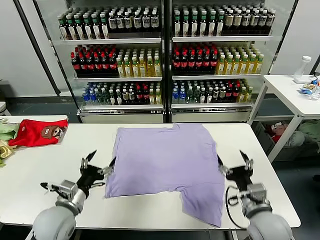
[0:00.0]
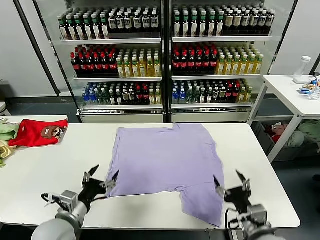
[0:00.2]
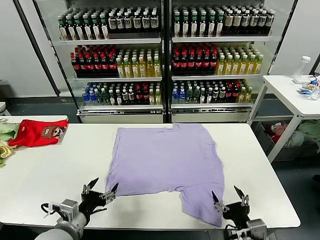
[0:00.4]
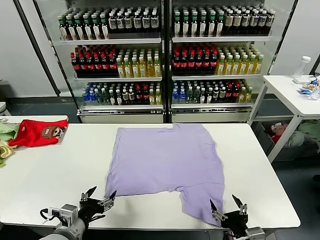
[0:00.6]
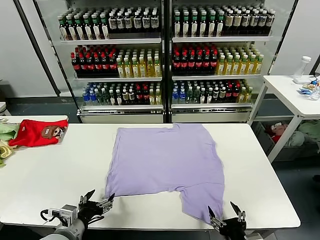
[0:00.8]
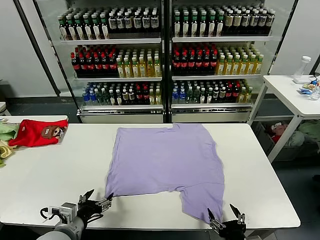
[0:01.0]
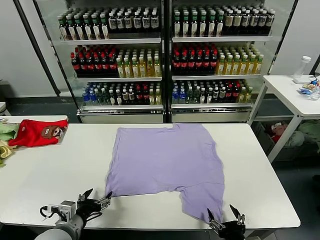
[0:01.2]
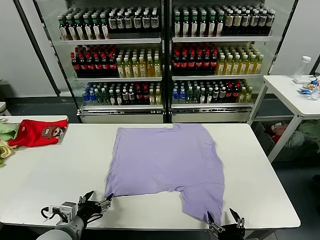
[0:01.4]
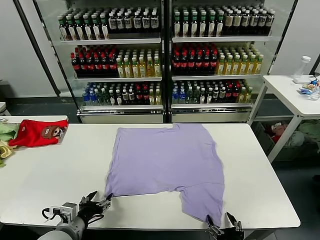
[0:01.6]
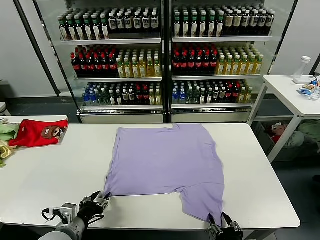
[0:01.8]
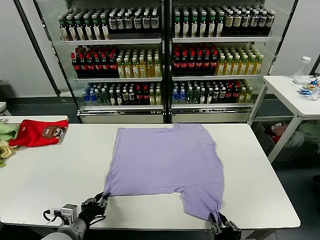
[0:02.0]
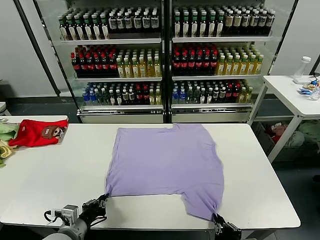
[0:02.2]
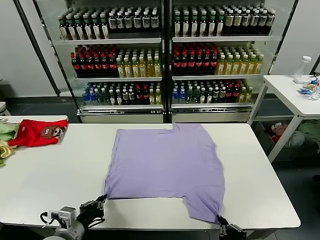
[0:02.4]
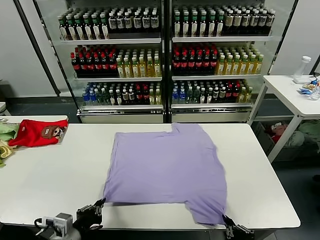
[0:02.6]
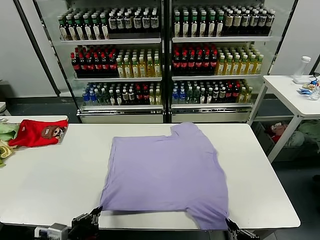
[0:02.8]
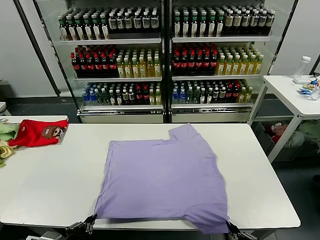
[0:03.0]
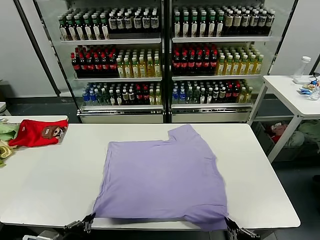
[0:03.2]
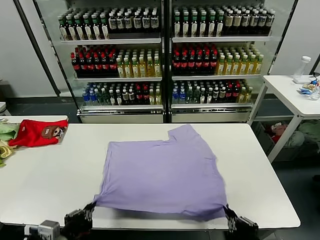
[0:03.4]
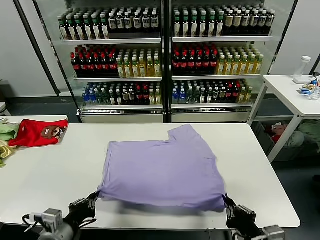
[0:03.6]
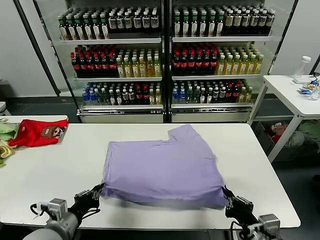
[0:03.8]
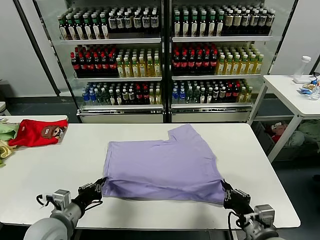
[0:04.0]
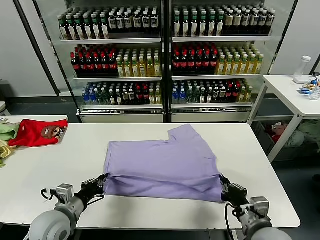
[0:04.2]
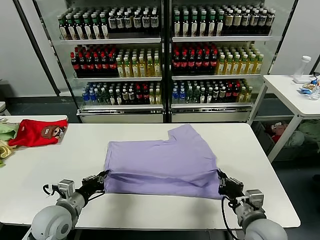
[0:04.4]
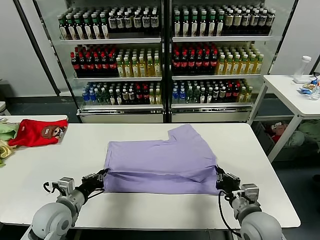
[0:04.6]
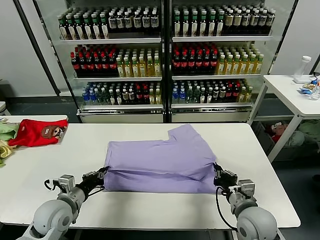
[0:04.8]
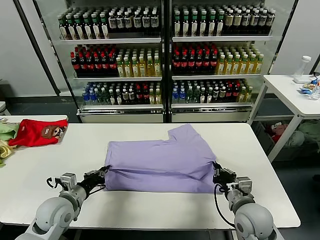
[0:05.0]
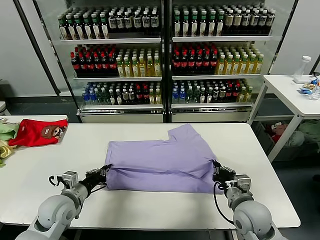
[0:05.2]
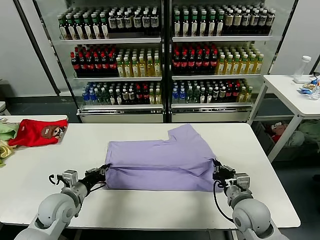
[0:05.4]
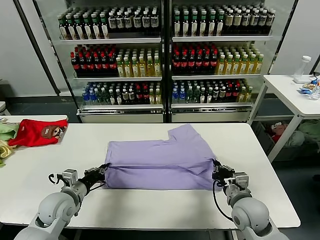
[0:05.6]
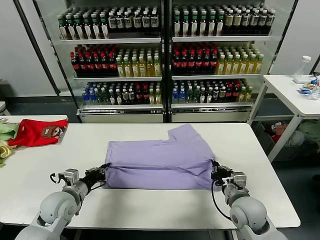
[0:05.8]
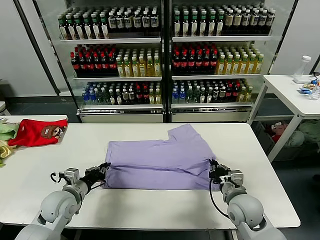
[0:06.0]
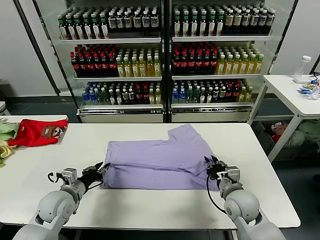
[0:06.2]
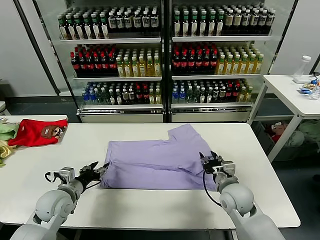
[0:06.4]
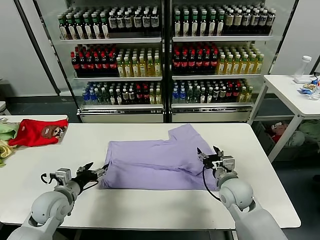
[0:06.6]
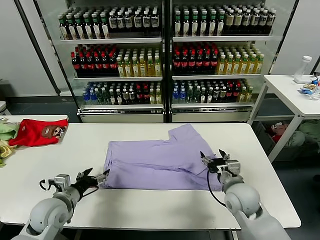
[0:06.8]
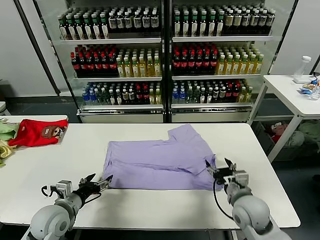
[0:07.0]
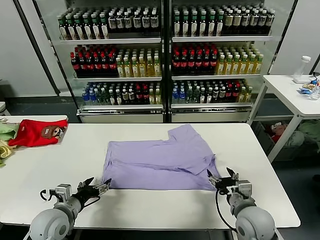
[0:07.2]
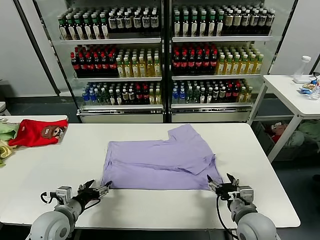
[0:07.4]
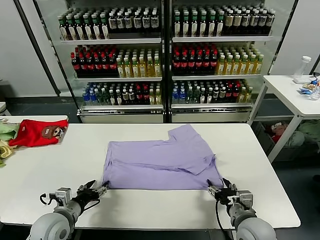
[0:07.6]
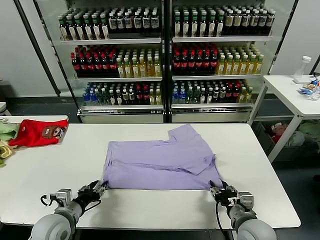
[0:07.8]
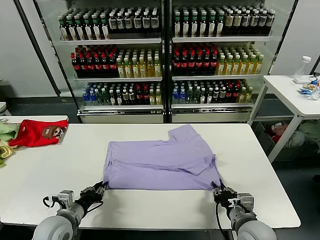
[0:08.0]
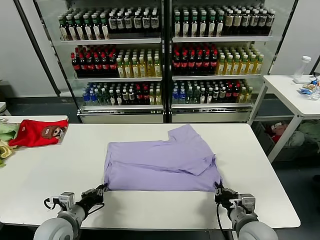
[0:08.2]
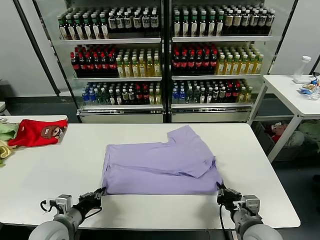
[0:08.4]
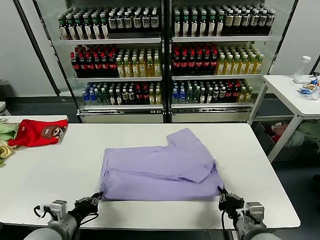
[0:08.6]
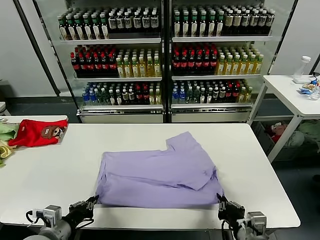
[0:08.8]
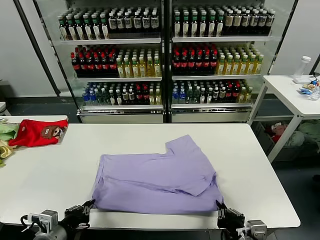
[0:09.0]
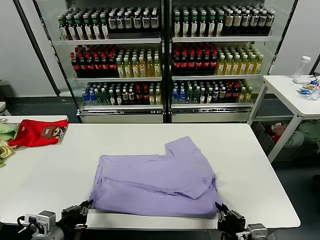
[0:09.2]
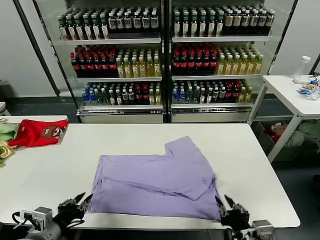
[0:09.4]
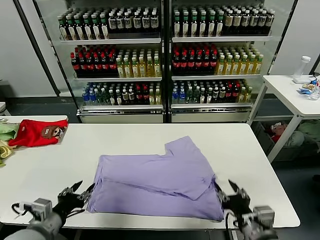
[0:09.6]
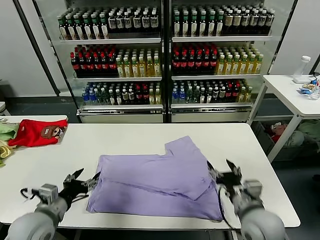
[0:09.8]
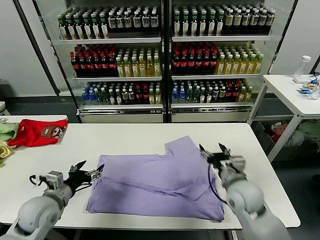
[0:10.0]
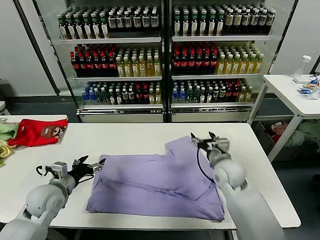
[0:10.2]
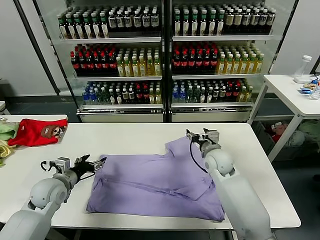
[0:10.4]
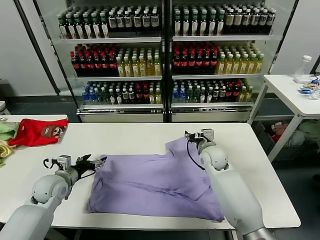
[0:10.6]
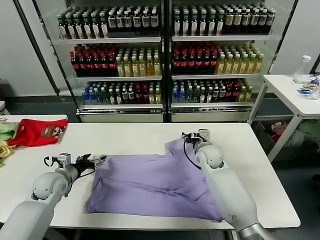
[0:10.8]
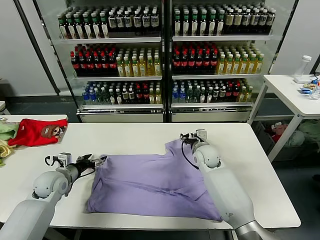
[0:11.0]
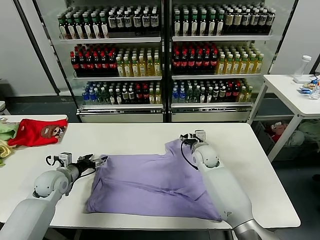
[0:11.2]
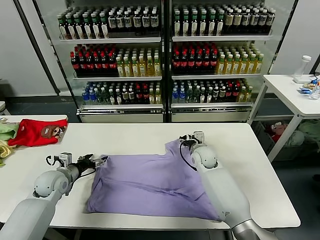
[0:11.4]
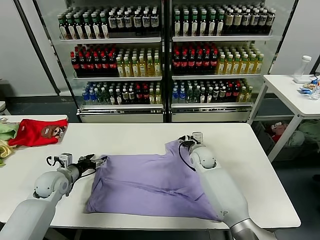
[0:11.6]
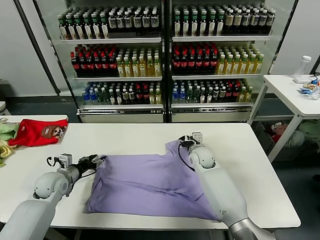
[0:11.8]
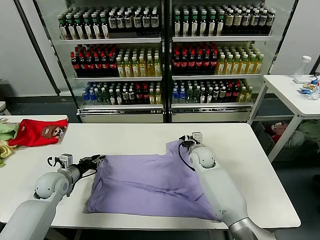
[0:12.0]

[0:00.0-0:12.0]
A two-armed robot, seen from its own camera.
Task of the whole recording: fold and organize the clothes.
Step, 0.0 to 2.0 s: use both grippers simultaneously to clamp the lower edge of the clothing fabric.
Step, 2.2 to 6.2 s: use both grippers to drag the lower edge of the fabric forward and fold it over the upper edge.
Step, 6.4 to 9.2 s: Drag the clothes downward with both gripper.
1.6 to 3.0 s: The left gripper is displaced backward and upward by roughly 10 cm, and closes up; the right gripper travels upward by about 10 cm, and closes up.
3.0 to 4.4 s: The grippers both shift forward by about 15 cm.
4.4 to 6.0 s: Both grippers travel together forward, about 5 cm.
6.0 to 7.6 s: The grippers both shift backward by roughly 10 cm. The left gripper opens up; the right gripper opens, then closes once more.
7.6 to 9.0 s: Both grippers travel together backward, about 10 cm. The left gripper closes up; the right gripper closes.
9.0 to 10.4 s: The right gripper goes some 35 cm forward, and opens up. The left gripper is displaced forward by roughly 20 cm, and opens its fingers.
10.4 to 12.0 s: The left gripper moves approximately 5 cm, and closes. Meanwhile the right gripper ends up about 5 cm from where it was, and closes up.

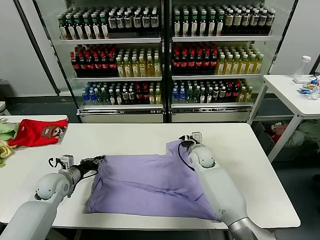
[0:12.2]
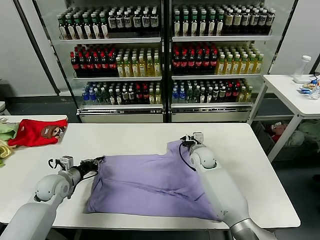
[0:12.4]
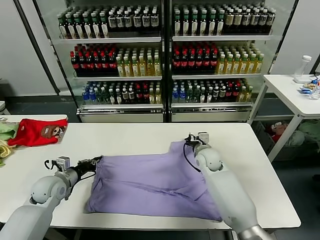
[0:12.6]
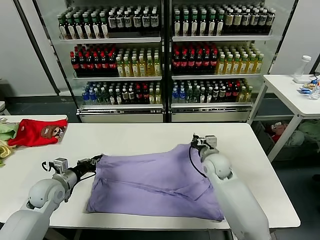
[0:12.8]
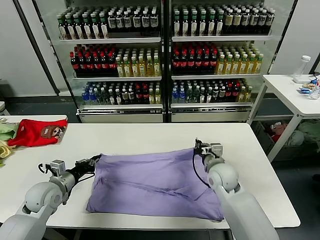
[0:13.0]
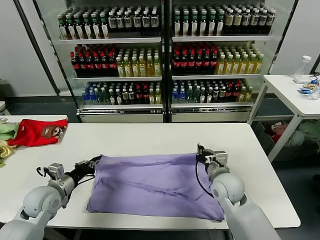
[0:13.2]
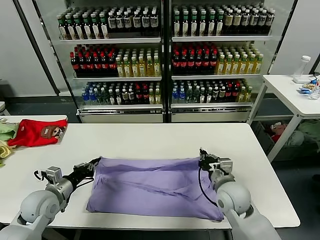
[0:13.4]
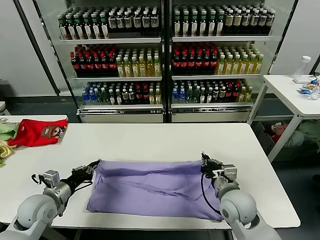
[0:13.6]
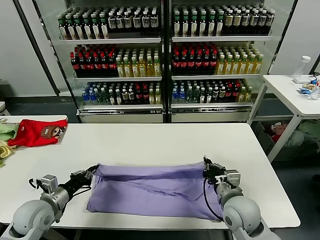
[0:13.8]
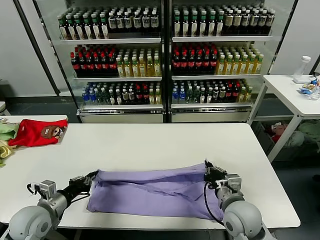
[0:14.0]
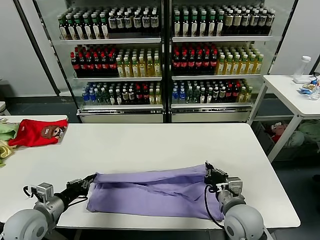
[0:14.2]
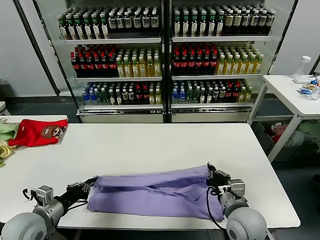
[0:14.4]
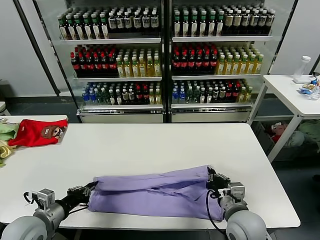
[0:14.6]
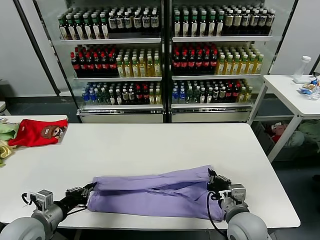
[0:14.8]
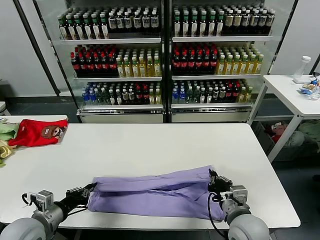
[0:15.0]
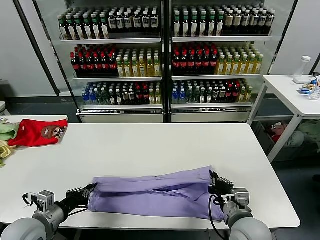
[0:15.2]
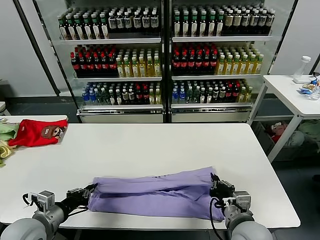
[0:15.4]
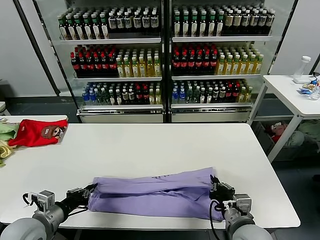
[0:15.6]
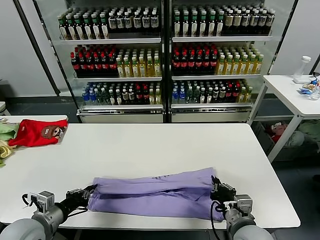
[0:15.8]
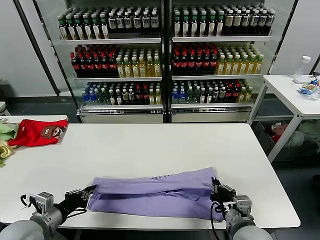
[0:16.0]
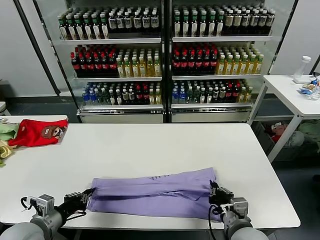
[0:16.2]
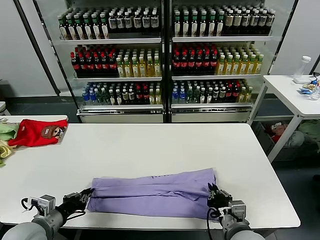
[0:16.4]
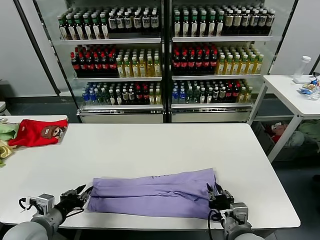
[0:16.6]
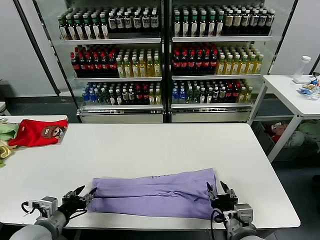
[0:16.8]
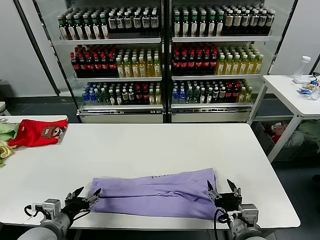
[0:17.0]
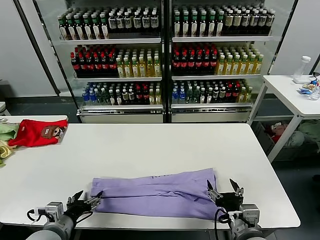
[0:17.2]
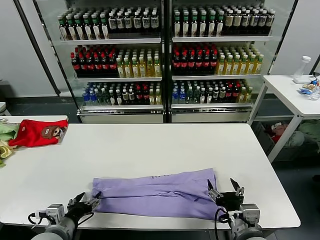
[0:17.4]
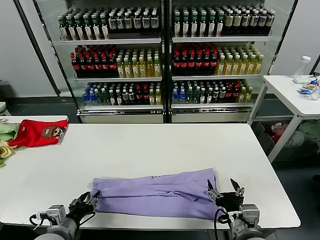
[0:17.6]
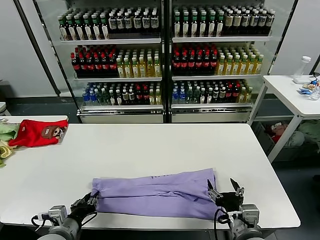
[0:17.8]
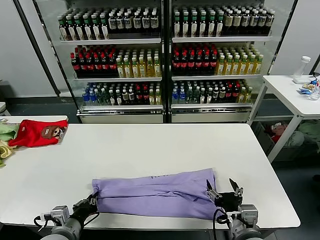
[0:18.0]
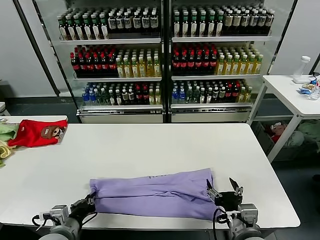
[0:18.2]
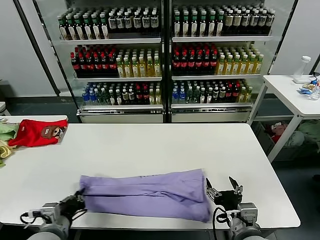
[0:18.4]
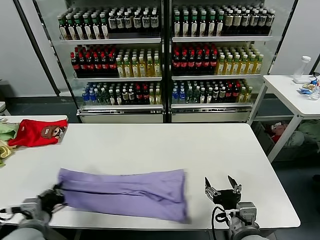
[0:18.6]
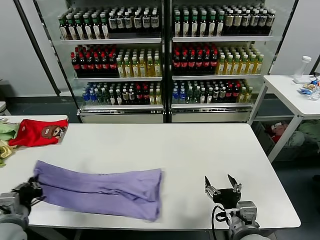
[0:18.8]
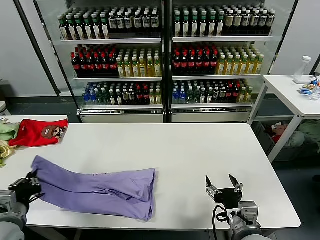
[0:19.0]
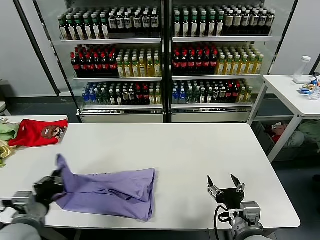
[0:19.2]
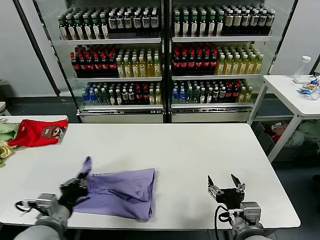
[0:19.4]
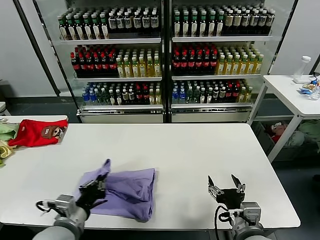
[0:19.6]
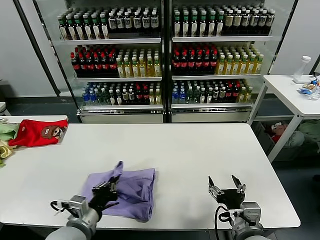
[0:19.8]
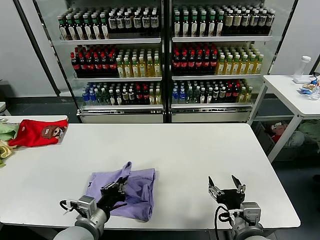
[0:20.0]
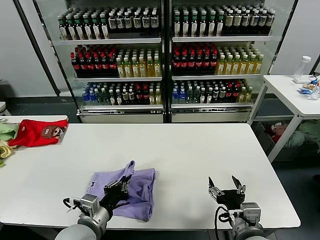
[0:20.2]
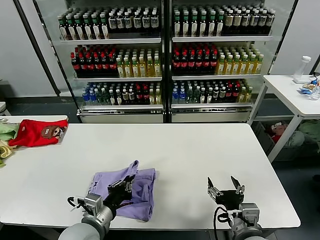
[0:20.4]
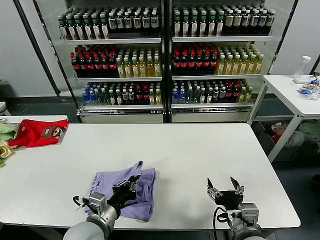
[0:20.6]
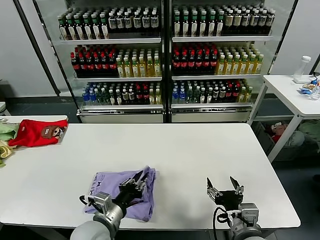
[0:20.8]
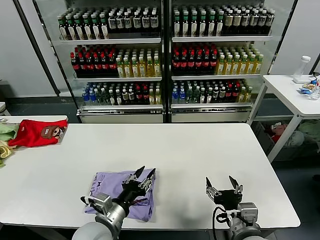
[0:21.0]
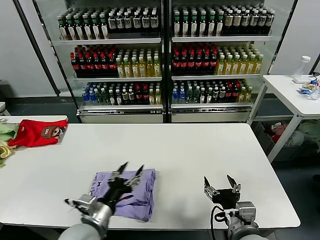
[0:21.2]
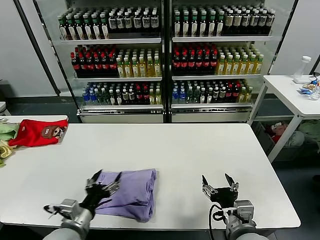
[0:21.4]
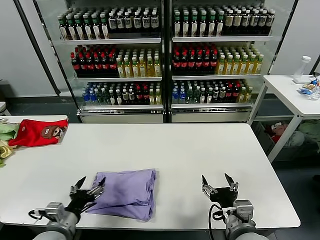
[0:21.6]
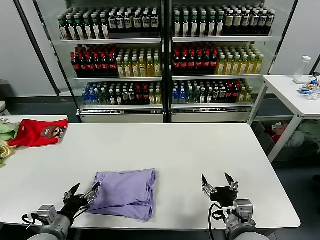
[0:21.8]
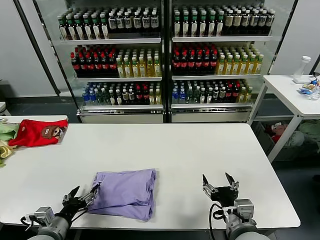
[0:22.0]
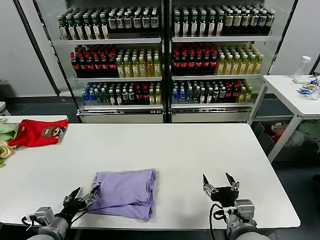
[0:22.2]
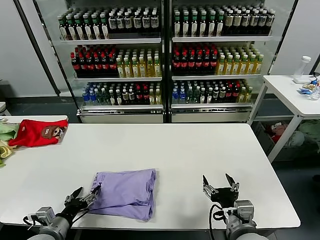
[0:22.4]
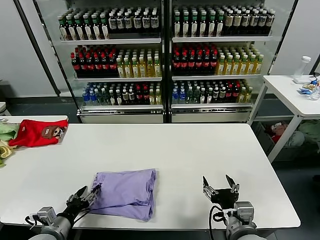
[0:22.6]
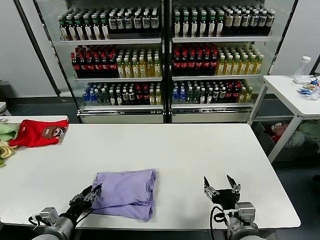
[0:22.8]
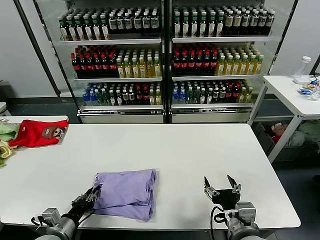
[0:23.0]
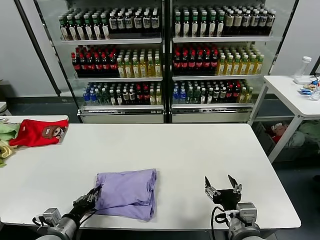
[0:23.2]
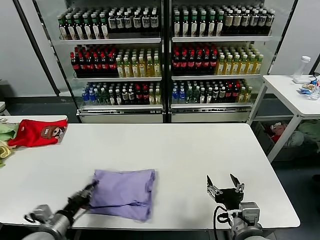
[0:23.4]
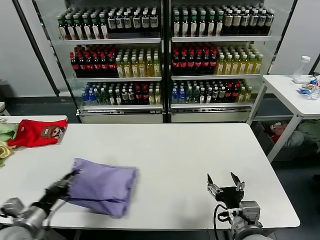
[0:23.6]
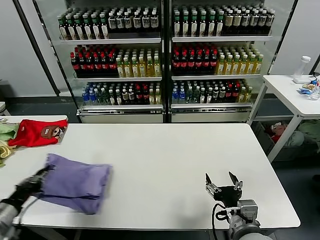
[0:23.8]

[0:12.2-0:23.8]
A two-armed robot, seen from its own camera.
Task of the whole recording: fold and organize the clothes.
Step, 12.4 to 16.6 s: use both grippers to drag the upper edge of the fabric backward and fold it over the lower edge.
Step, 16.8 to 18.0 s: use the left gripper to clamp the left edge of the fabric.
Step, 18.2 to 20.6 s: use the left gripper to drag the left edge of the fabric to the left and folds it over the right edge.
12.2 to 13.6 s: The left gripper shifts roughly 10 cm backward, while the right gripper is displaced backward by approximately 20 cm.
13.6 to 15.0 s: The grippers both shift backward by roughly 5 cm.
15.0 to 16.6 s: The right gripper opens its fingers; the left gripper opens its fingers.
16.6 to 18.0 s: The left gripper travels to the right by about 5 cm, and opens and closes again. Meanwhile the right gripper opens.
18.0 to 19.4 s: The left gripper moves upward, some 10 cm, and travels to the left and back again, some 10 cm each way.
19.4 to 21.0 s: The left gripper shifts roughly 10 cm to the right, and opens.
21.0 to 22.4 s: The left gripper shifts about 20 cm to the left and downward, and opens up.
22.4 to 23.8 s: The left gripper goes approximately 15 cm upward and to the left, and closes its fingers.
